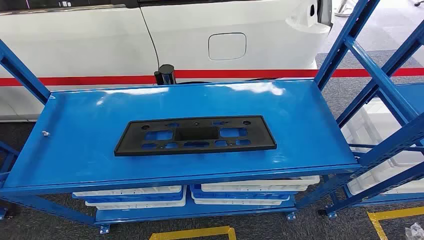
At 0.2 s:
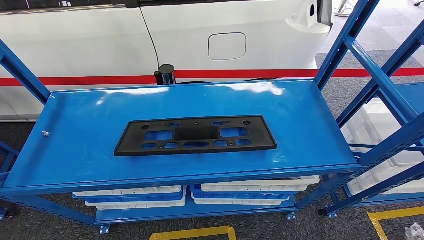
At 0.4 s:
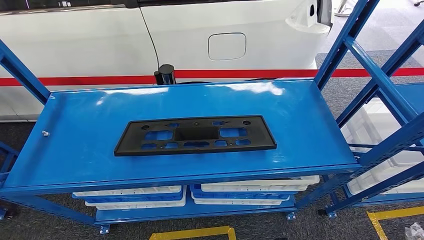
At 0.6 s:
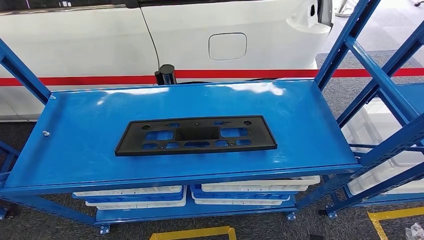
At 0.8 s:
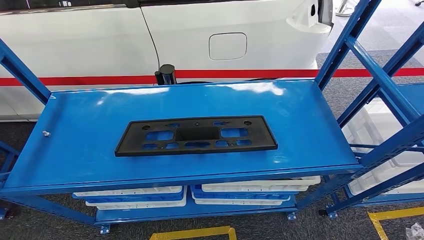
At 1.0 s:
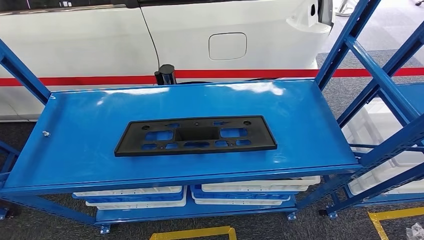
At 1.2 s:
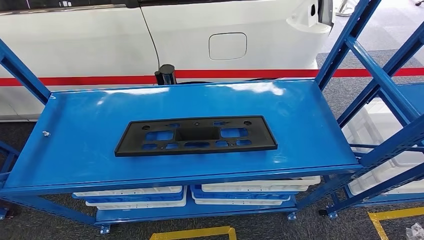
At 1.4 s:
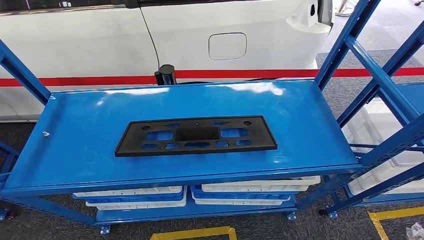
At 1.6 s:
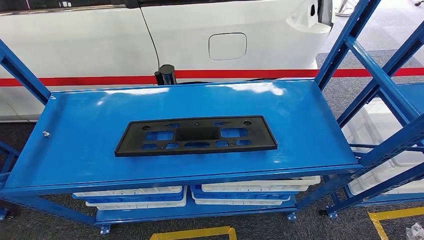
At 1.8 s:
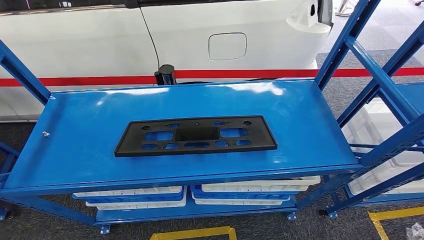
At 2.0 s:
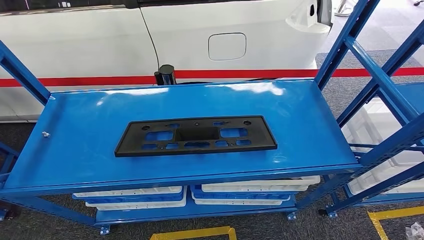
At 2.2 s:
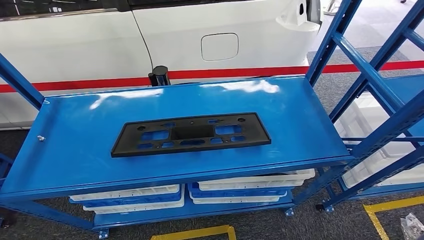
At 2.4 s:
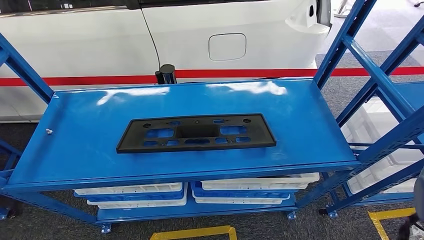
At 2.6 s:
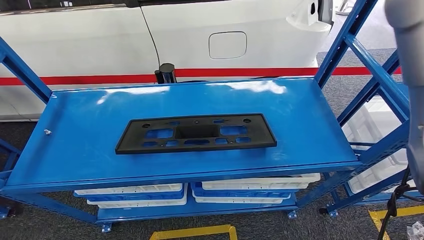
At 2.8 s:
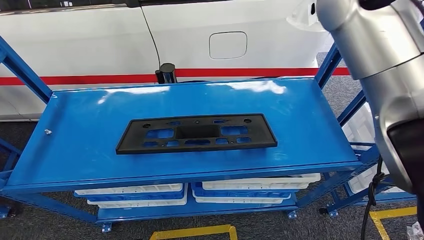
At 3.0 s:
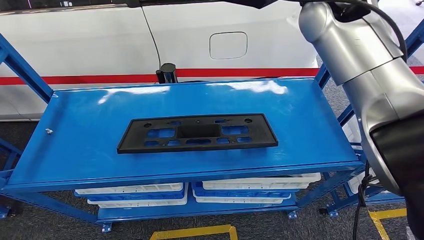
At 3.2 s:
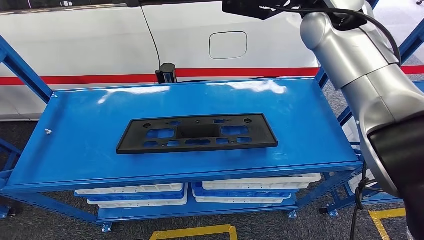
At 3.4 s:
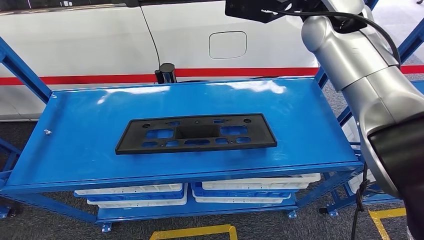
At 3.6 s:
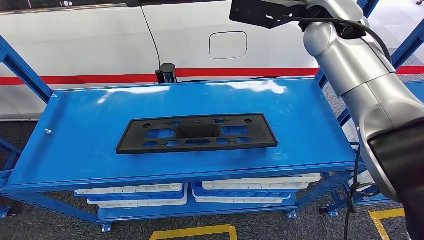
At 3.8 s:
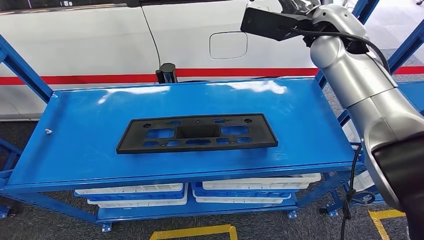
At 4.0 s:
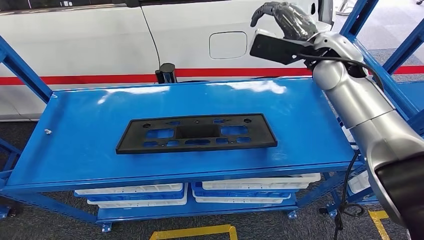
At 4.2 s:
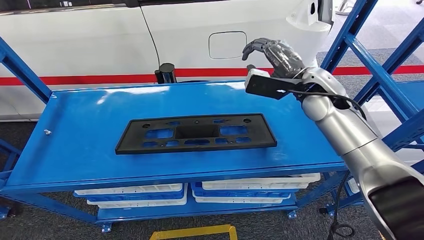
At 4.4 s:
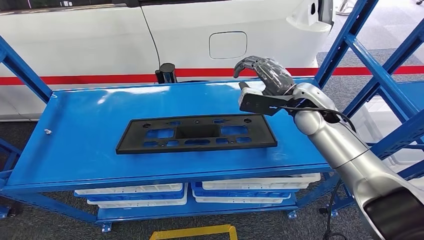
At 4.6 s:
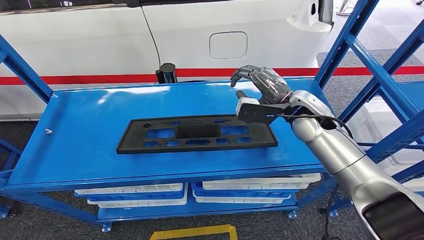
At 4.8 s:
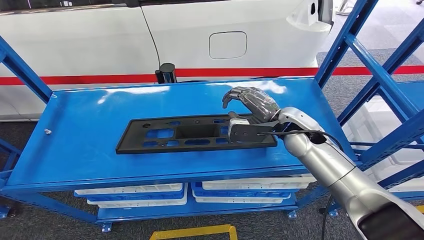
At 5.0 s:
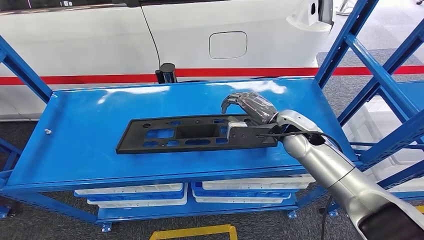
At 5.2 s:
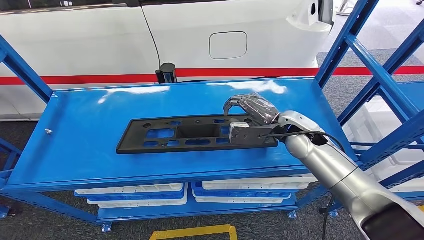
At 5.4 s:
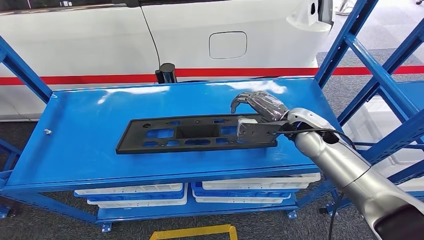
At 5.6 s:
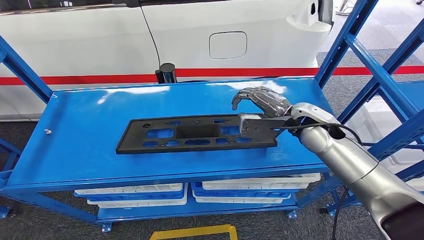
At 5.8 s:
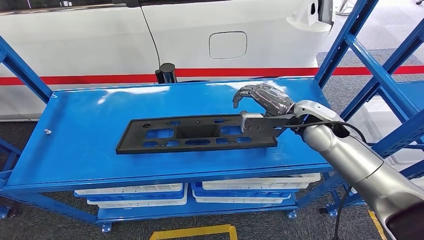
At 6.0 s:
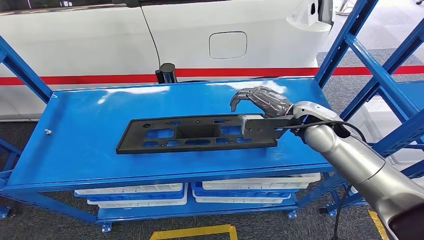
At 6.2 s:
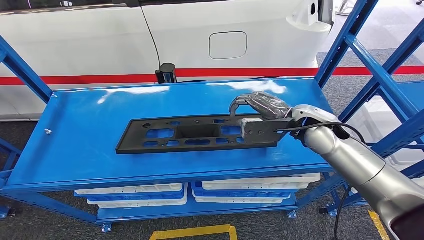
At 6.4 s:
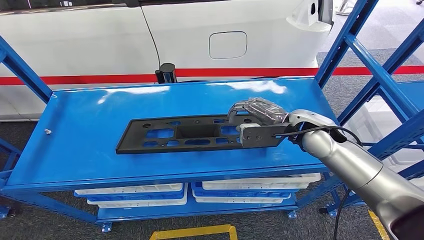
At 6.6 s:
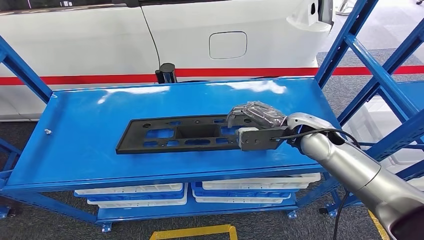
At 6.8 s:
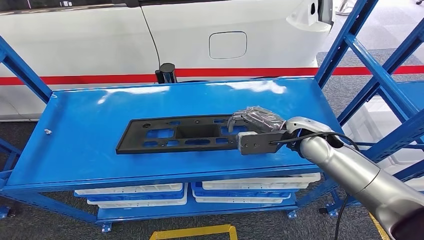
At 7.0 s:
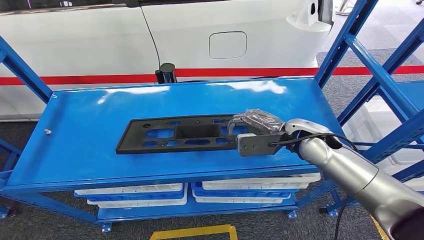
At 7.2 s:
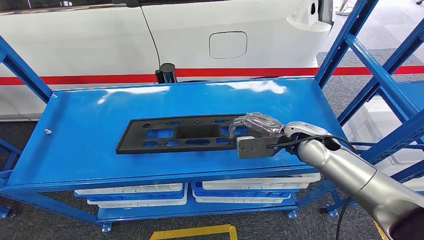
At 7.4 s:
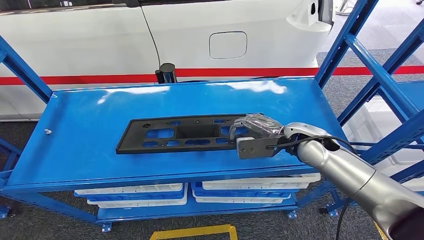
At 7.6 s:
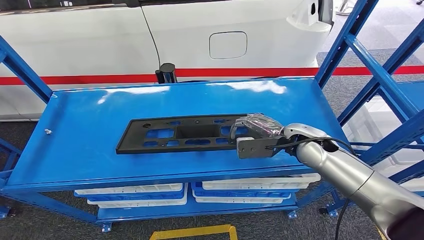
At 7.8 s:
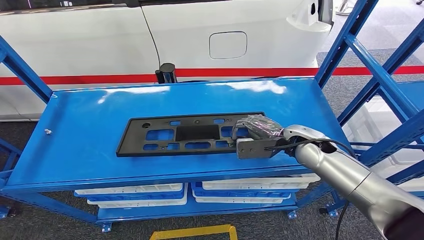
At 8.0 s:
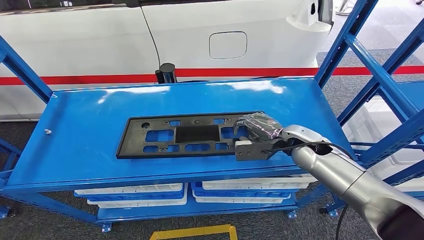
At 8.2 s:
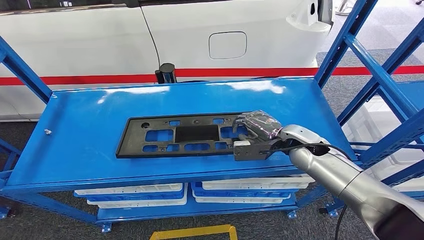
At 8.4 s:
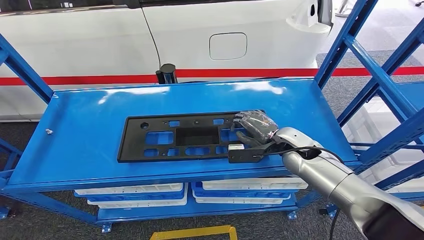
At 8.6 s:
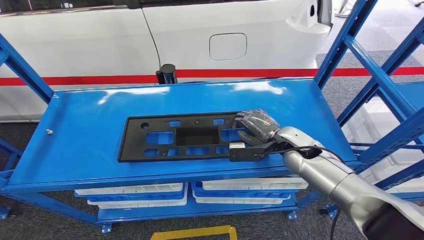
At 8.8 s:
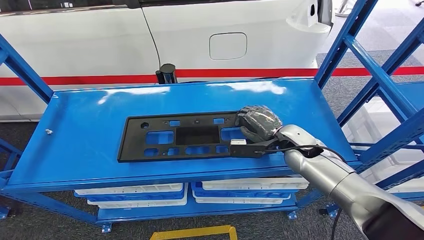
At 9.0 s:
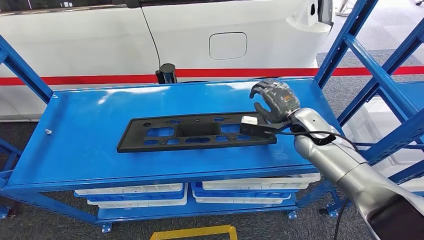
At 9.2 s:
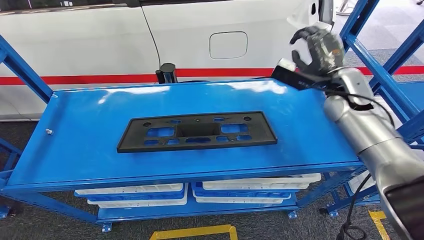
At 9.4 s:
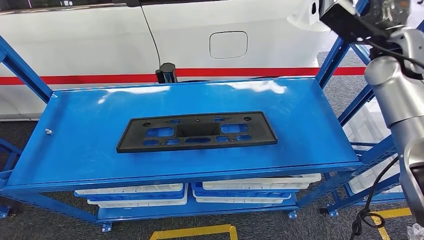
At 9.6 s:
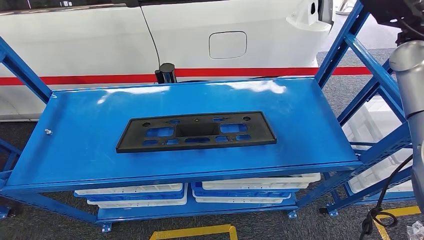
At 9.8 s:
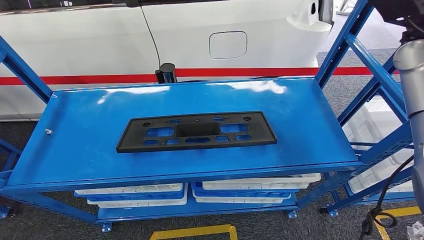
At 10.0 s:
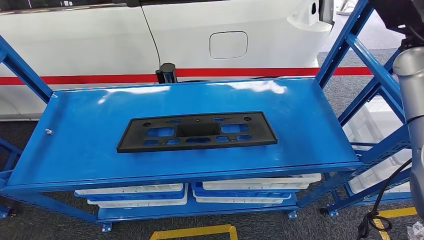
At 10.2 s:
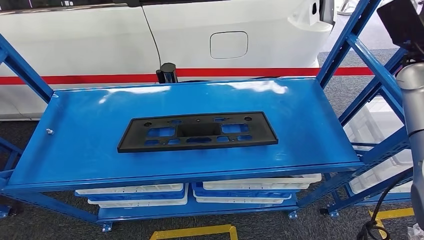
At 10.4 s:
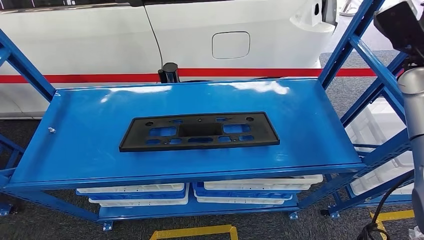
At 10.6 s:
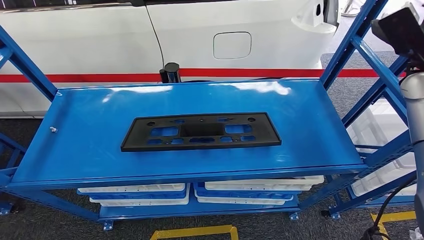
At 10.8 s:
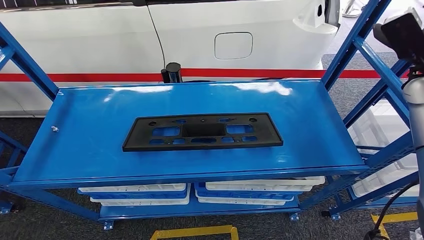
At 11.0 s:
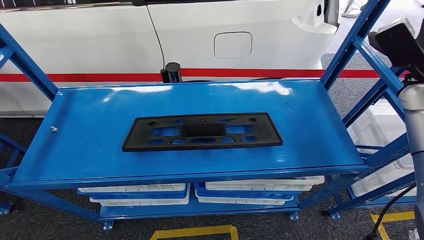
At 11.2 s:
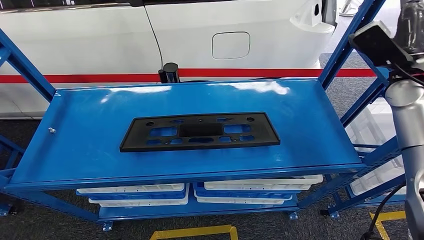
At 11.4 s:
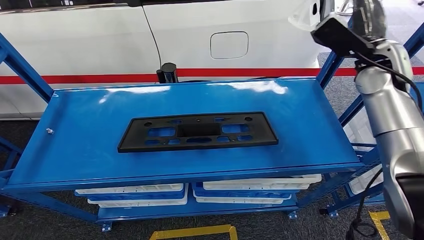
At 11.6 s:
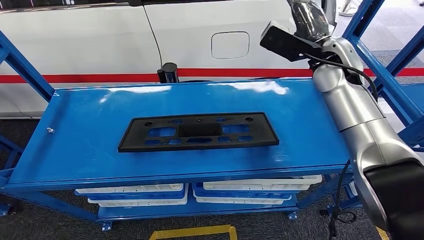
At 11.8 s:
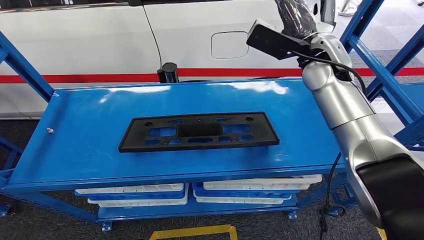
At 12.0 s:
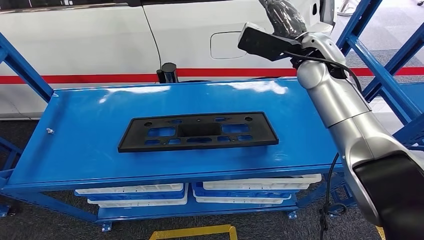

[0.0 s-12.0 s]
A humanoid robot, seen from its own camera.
6.0 to 7.6 s: The right hand moves downward, about 5 cm.

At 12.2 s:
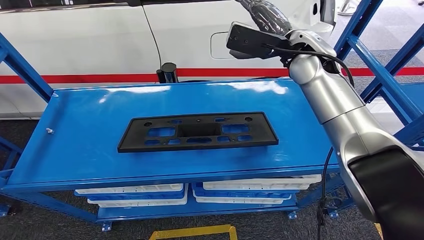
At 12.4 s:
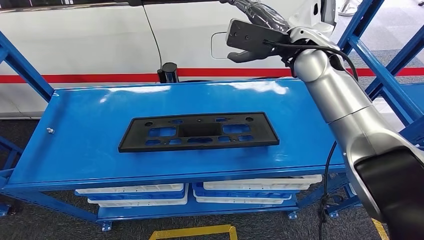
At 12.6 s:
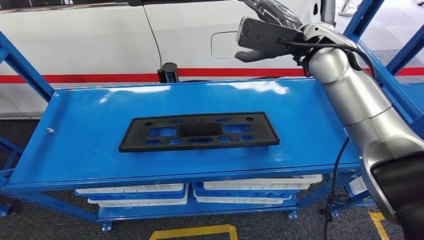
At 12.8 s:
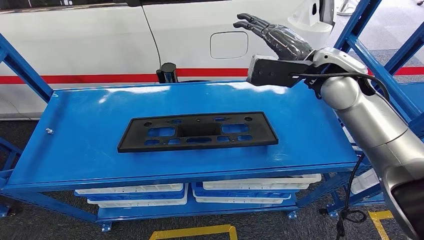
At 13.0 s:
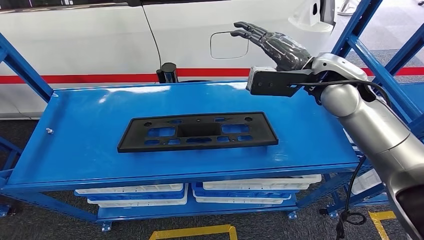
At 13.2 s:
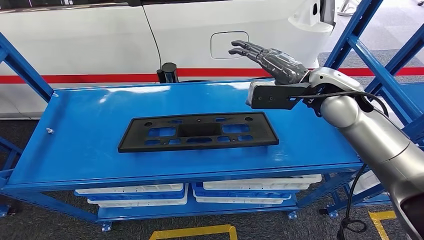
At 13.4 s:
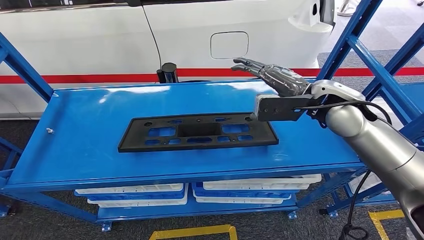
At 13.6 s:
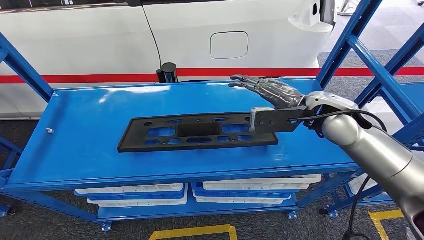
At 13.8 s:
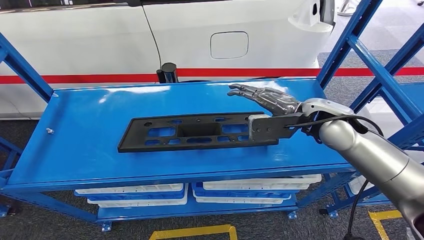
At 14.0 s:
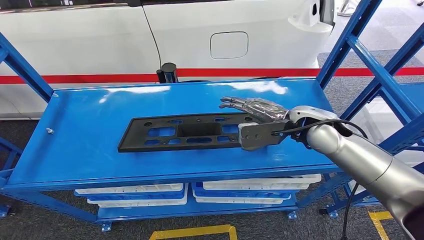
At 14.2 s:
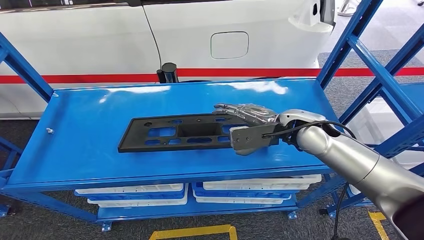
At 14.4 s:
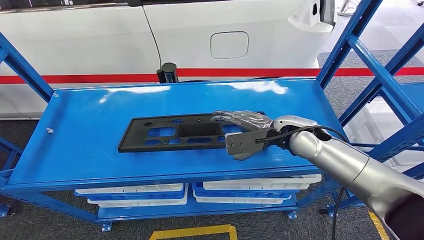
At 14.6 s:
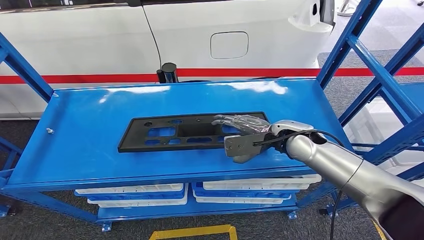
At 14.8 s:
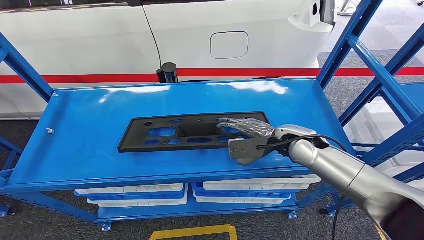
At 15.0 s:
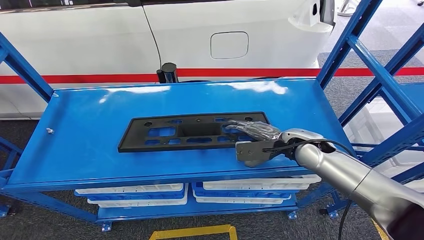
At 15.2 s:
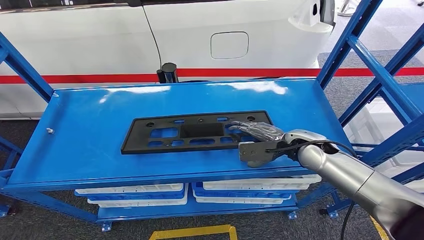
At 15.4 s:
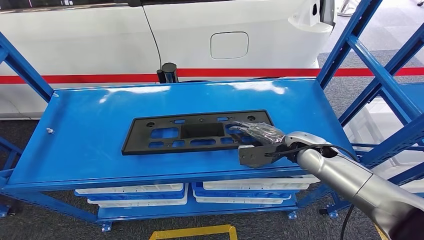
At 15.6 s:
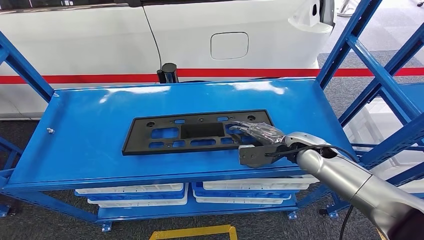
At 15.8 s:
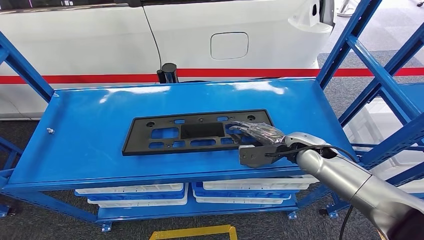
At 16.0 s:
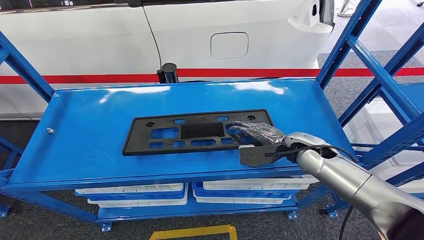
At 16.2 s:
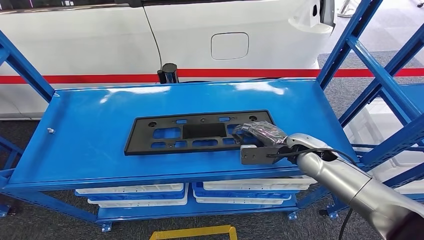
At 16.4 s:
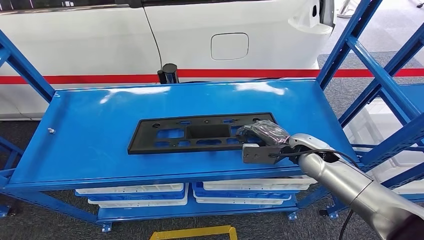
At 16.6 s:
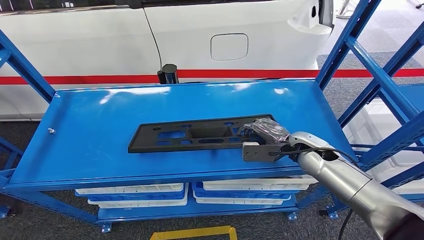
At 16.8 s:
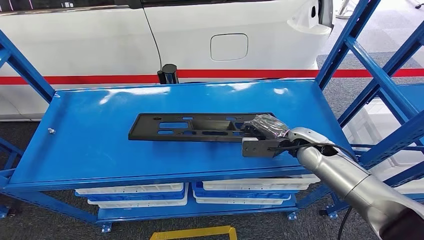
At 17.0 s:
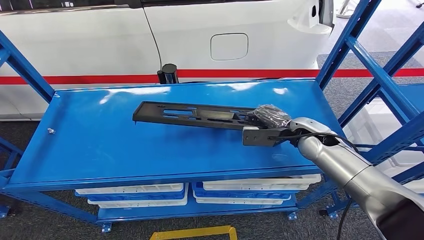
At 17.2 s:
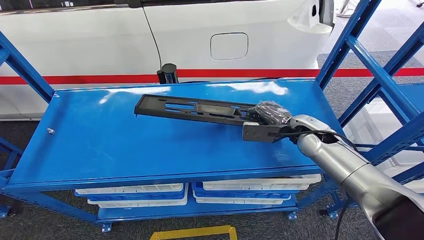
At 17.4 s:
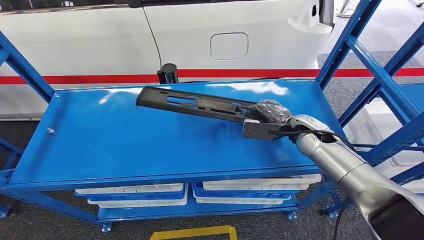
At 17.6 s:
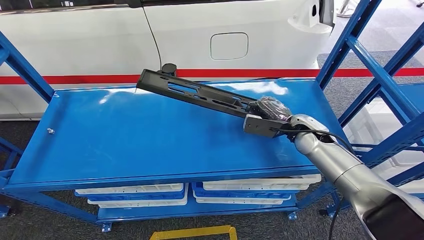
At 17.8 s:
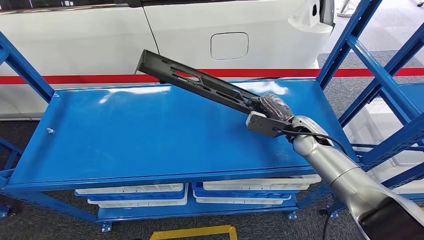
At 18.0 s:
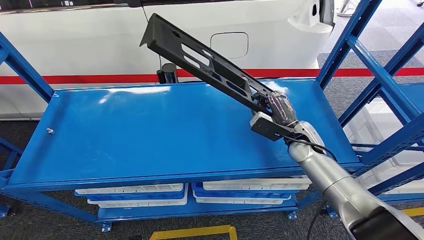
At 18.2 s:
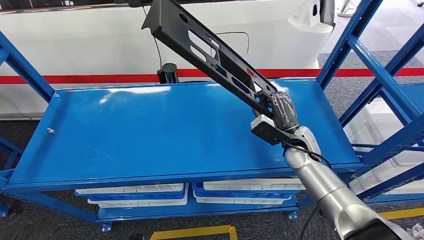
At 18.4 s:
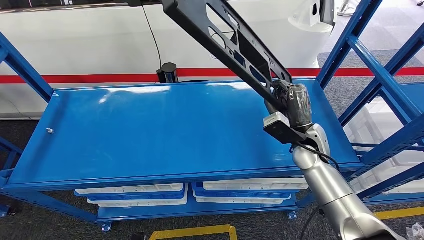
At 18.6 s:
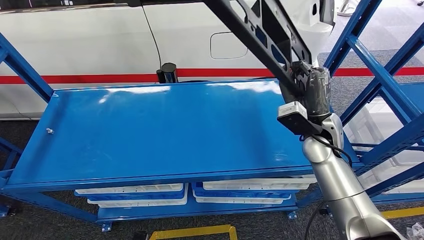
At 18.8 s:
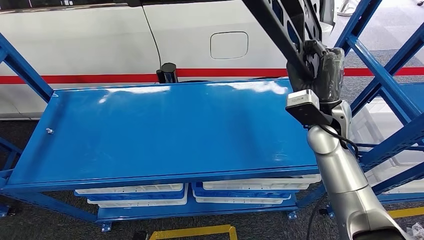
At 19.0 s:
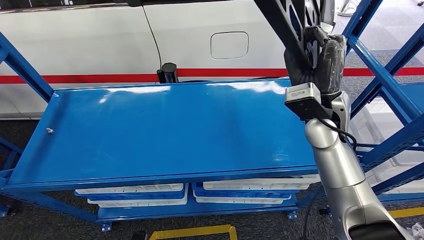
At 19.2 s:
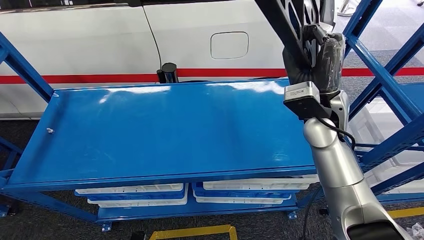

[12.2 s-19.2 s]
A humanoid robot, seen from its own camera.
Step, 12.2 to 18.2 s: Pick up the large material from the shelf.
12.2 to 13.6 s: The right hand heads backward, downward and to the right, covering about 15 cm.
13.6 to 15.0 s: The right hand shifts roughly 10 cm downward.
15.0 to 16.4 s: The hands make only small movements.
